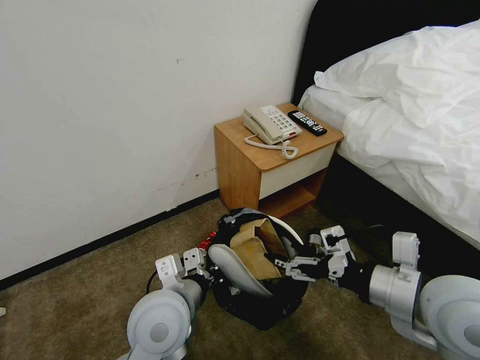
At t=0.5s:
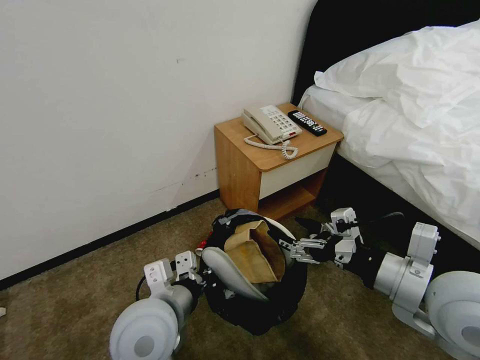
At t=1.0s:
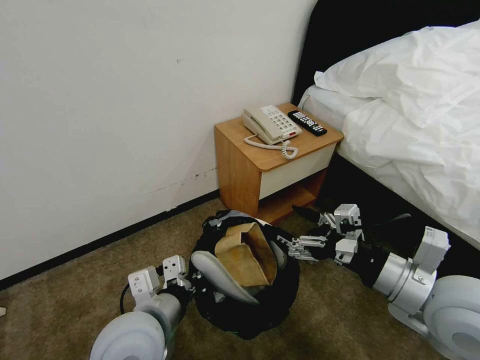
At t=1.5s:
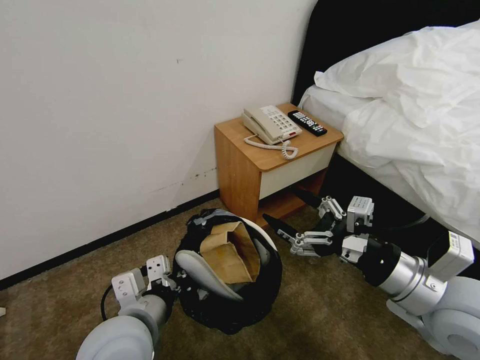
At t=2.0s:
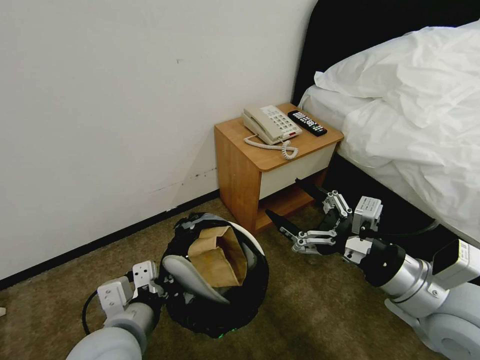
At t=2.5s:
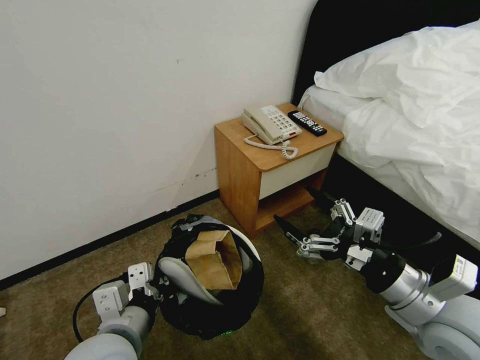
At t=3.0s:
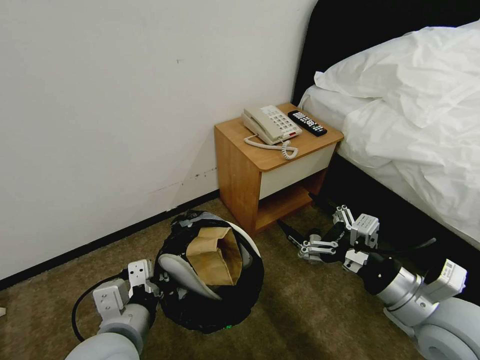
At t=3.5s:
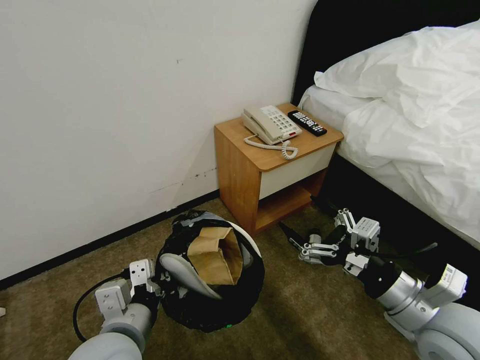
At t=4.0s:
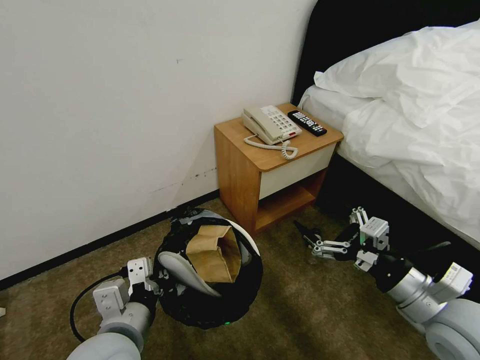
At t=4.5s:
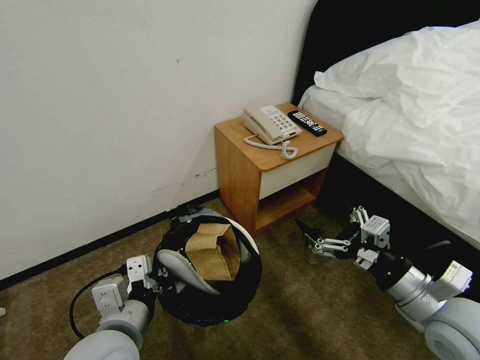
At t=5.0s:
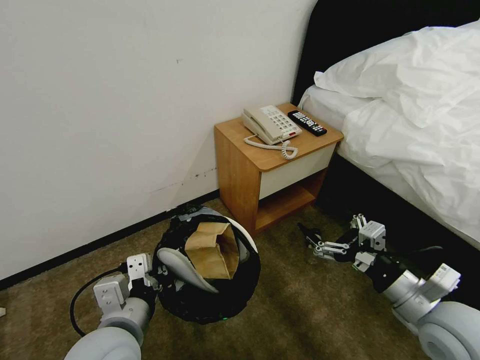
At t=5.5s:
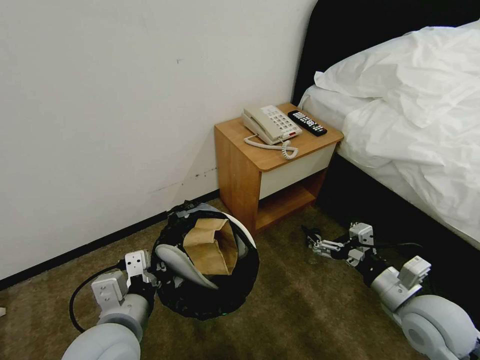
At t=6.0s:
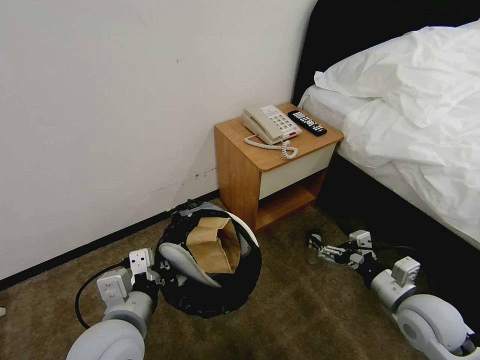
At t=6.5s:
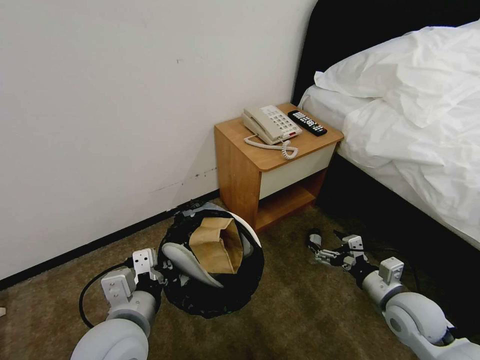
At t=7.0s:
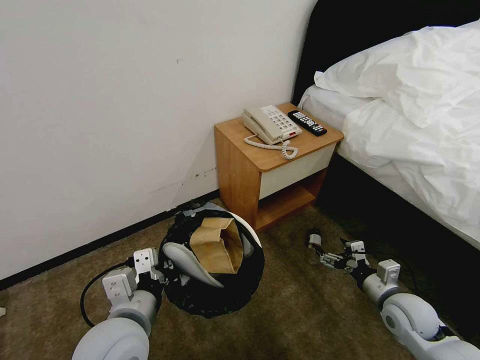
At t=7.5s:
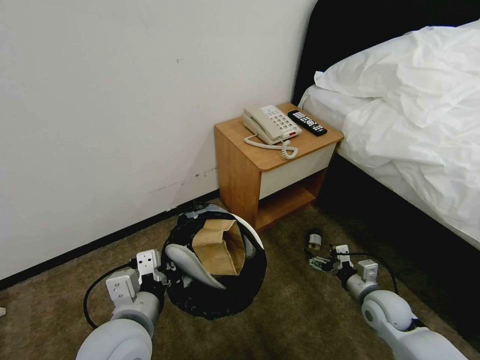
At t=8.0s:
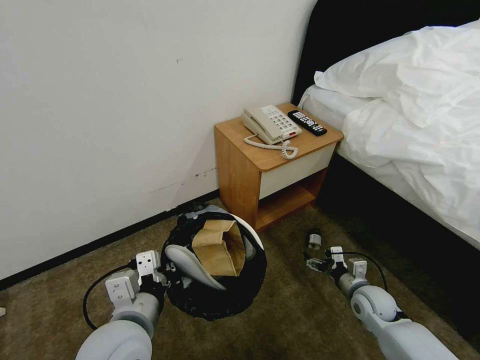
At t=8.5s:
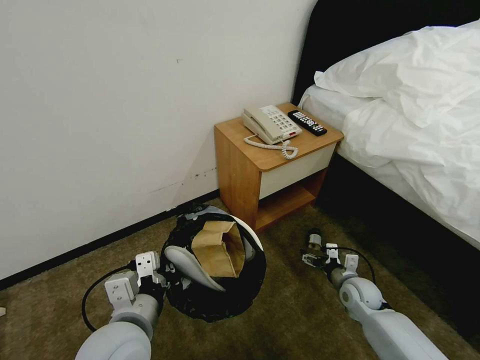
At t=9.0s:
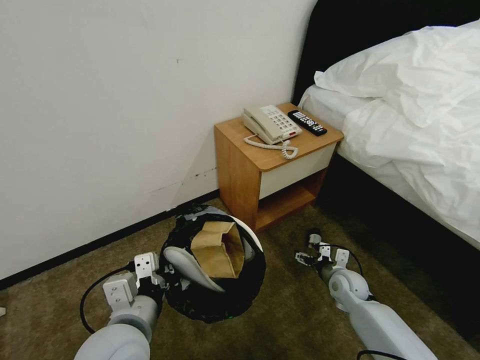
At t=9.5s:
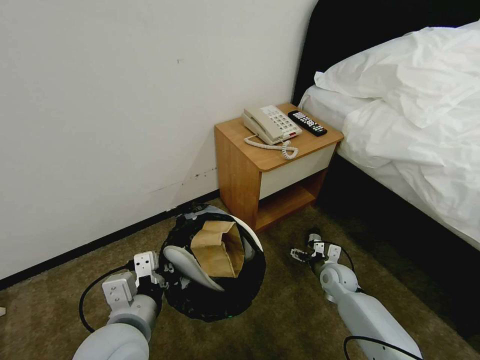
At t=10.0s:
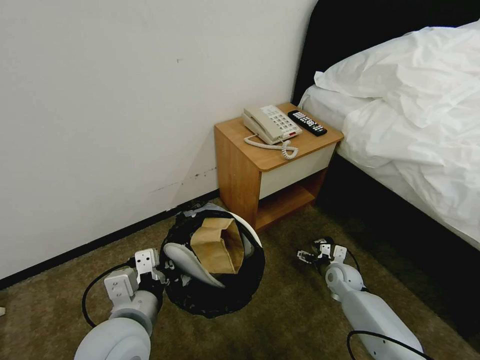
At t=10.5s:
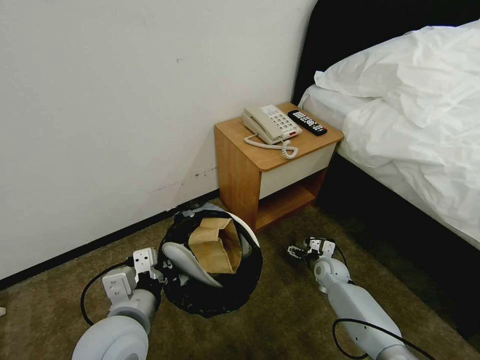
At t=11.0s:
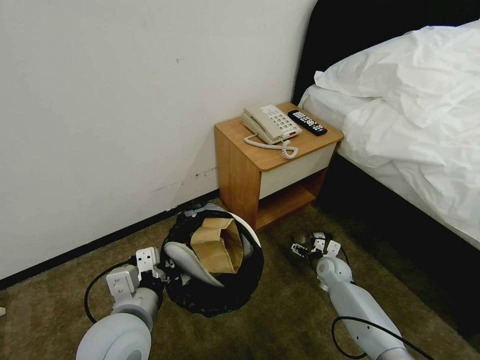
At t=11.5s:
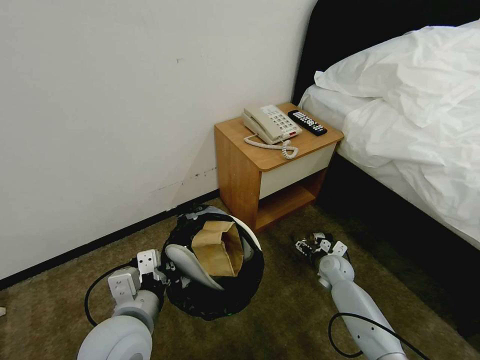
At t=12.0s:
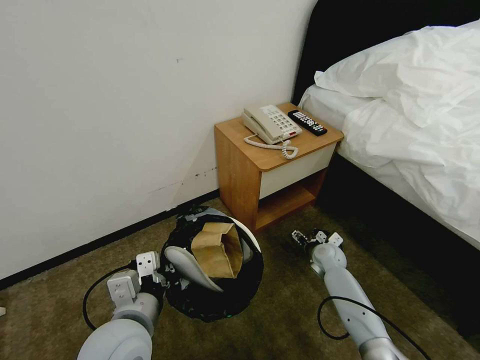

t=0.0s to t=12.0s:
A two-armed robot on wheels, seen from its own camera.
Task of the whole recording: Pick up the trash bin, then pick up the garbage from the floor and place it into the trash bin.
t=0.0s to t=2.0s: The left gripper is displaced backward and to the left by about 10 cm.
t=2.0s to t=4.0s: The right gripper is displaced downward by roughly 5 cm.
t=4.0s to t=6.0s: The right gripper goes about 10 cm downward.
t=6.0s to t=8.0s: The right gripper moves downward and forward, about 15 cm.
t=8.0s to t=10.0s: The right gripper is displaced forward by about 10 cm.
t=10.0s to t=12.0s: The right gripper shifts by some 5 cm.

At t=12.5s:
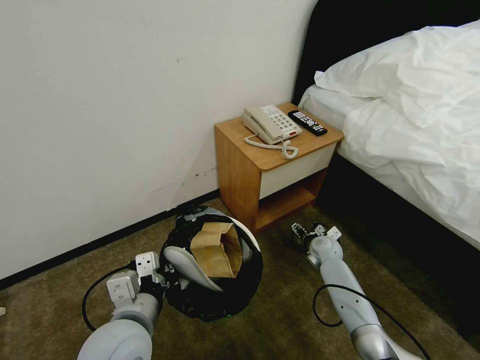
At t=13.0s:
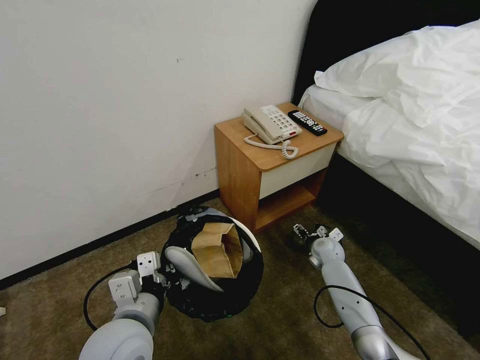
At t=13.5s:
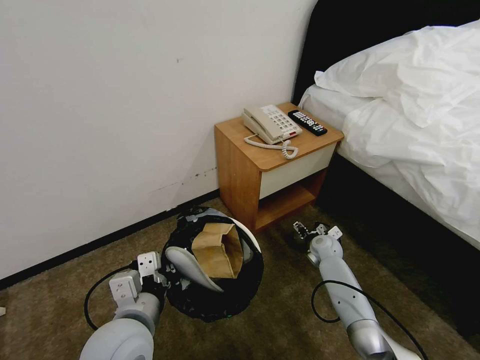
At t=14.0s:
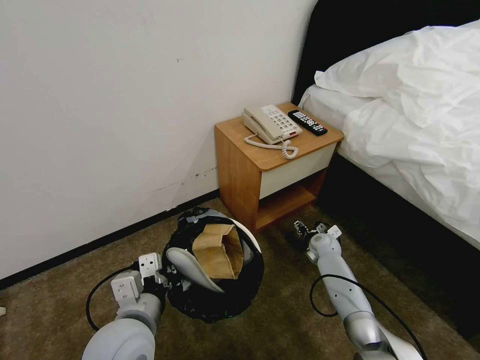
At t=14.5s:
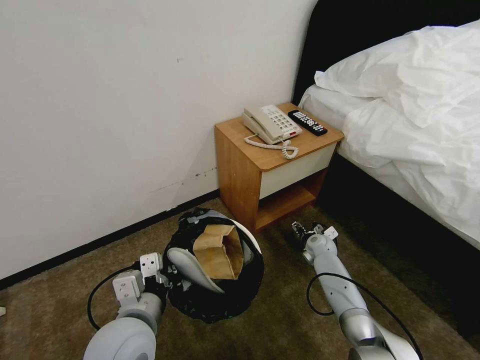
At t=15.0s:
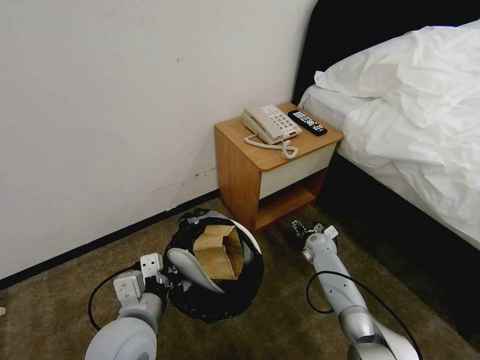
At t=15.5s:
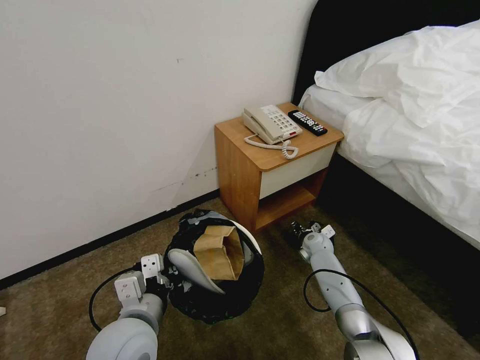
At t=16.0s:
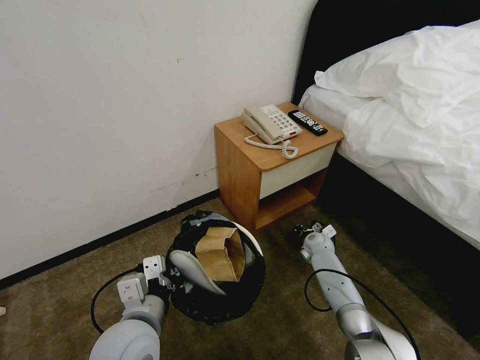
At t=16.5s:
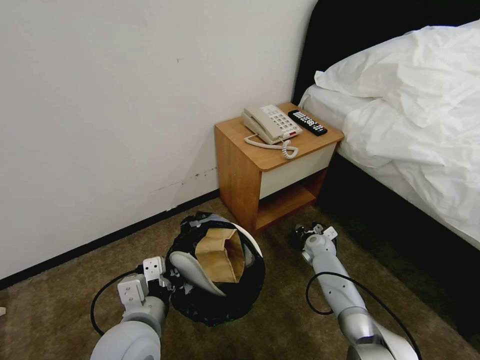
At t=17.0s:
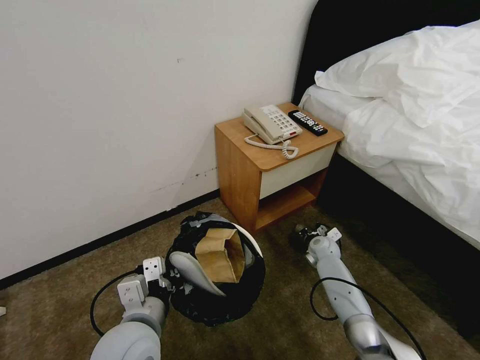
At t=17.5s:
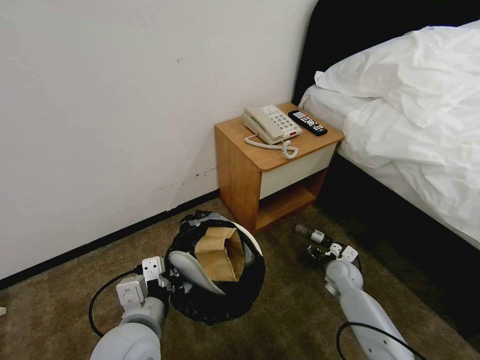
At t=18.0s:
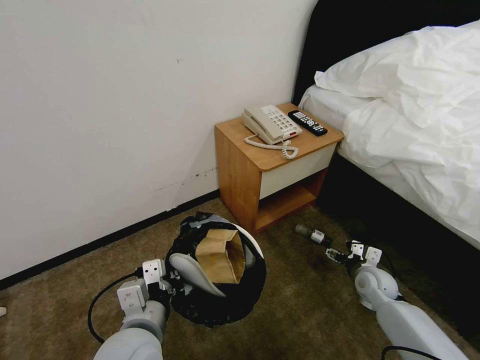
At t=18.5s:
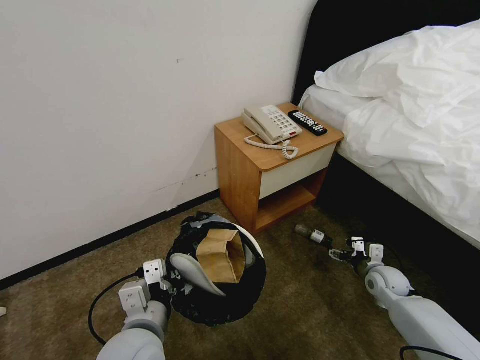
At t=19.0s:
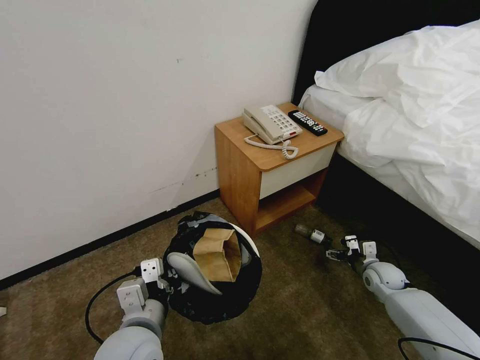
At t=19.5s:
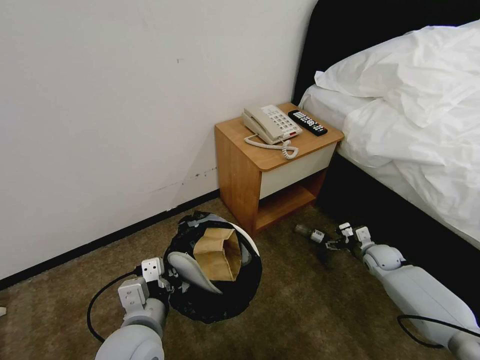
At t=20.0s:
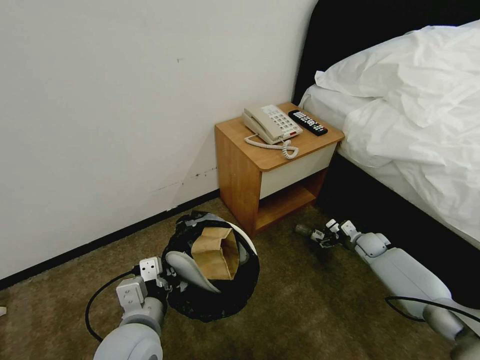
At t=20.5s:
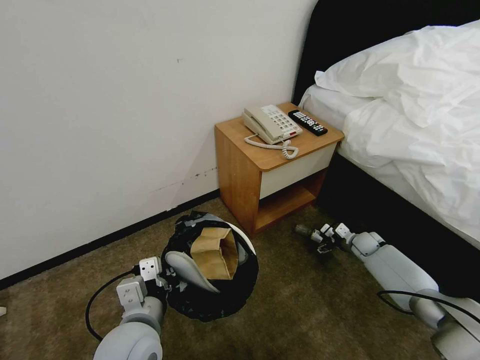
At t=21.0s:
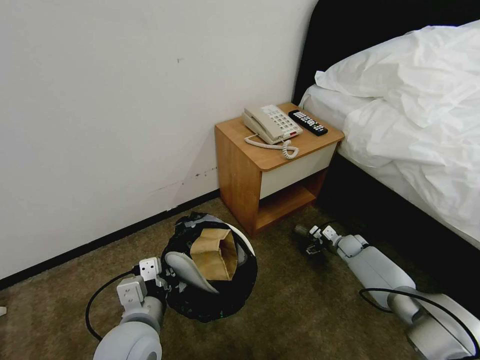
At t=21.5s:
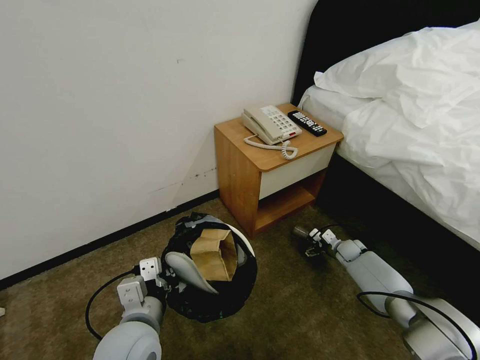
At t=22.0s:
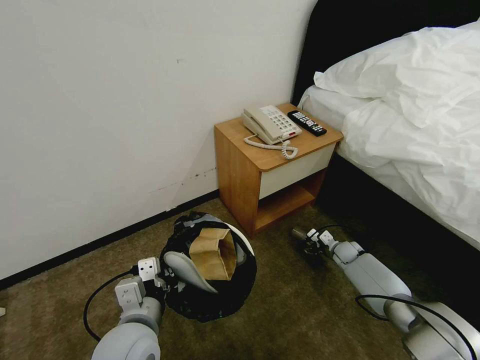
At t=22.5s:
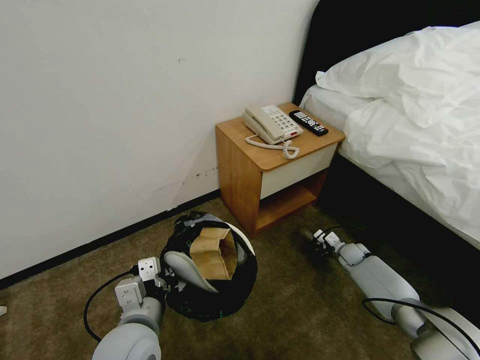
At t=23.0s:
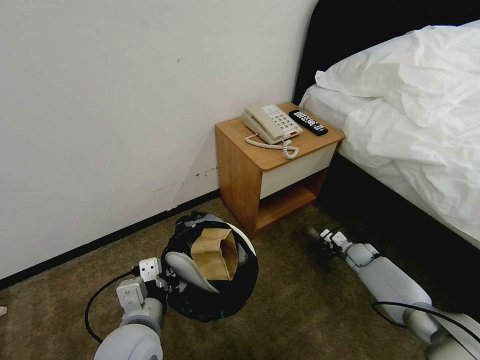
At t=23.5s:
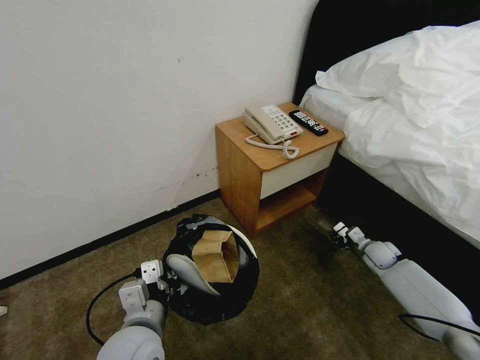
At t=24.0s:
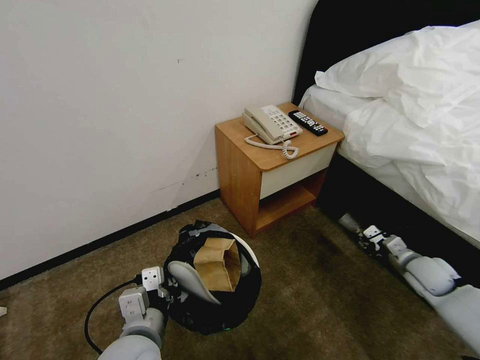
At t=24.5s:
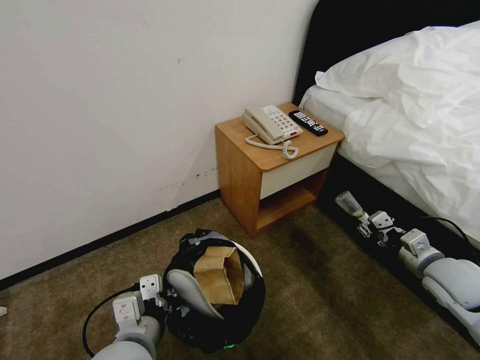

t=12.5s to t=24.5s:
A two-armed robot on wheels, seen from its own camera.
Task of the whole recording: Pick up the trash bin, then pick up the garbage from the floor and place it into the trash bin.
t=12.5s to t=14.5s: The grippers make only small movements.
t=14.5s to t=16.5s: The right gripper closes.
t=16.5s to t=18.5s: The right gripper is displaced backward and to the right by about 20 cm, and opens up.
t=18.5s to t=20.5s: The right gripper moves forward, approximately 15 cm.
t=20.5s to t=22.5s: The right gripper changes place by some 5 cm, and closes its fingers.
t=22.5s to t=24.5s: The right gripper goes approximately 30 cm upward and backward.

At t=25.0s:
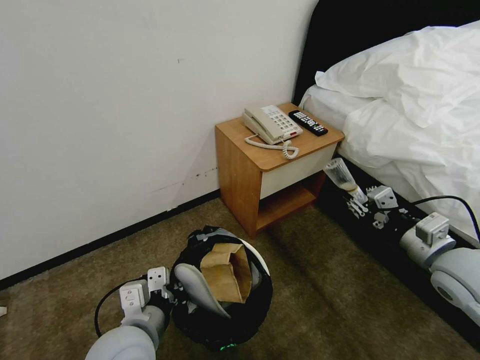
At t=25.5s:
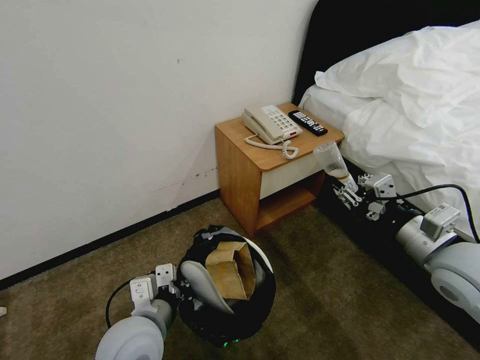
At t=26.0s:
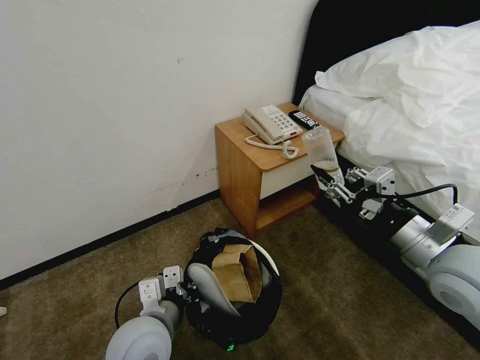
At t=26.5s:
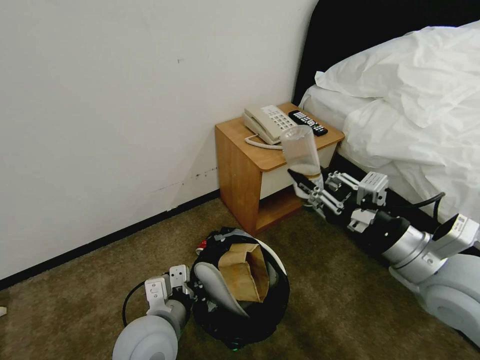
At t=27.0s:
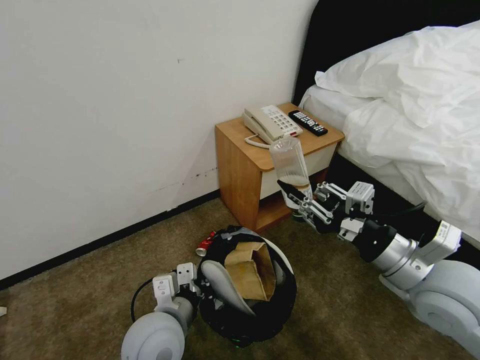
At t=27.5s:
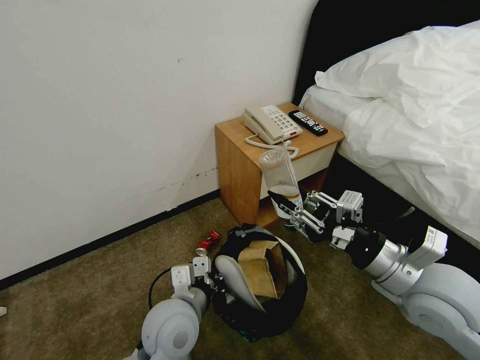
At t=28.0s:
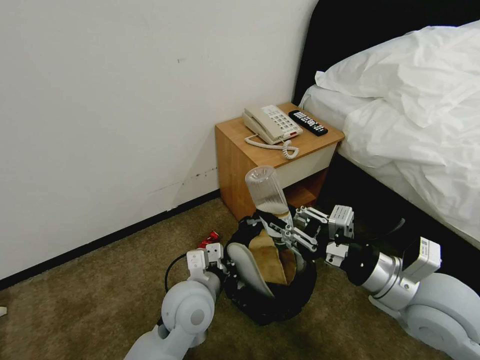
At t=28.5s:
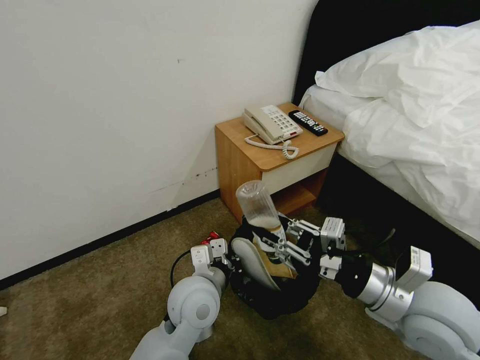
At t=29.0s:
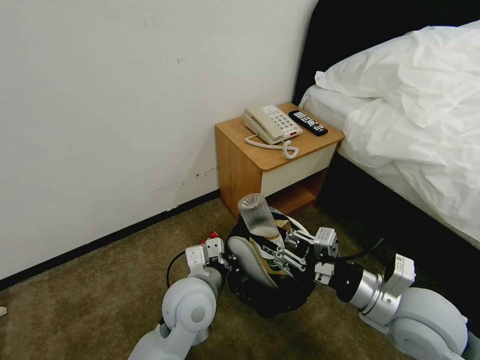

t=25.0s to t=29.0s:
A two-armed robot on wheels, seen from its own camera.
Task of the whole recording: Pick up the trash bin, then pick up the garbage from the floor and place it into the trash bin.
t=25.0s to t=27.0s: The right gripper travels to the left by approximately 10 cm; the left gripper moves roughly 5 cm.
t=27.0s to t=29.0s: The left gripper heads forward, covering some 5 cm, while the right gripper goes about 5 cm downward.
